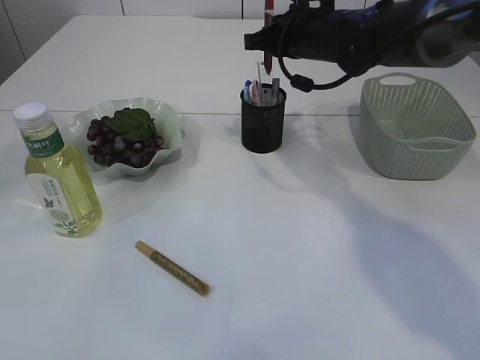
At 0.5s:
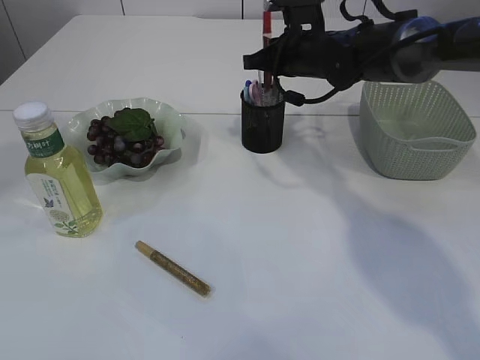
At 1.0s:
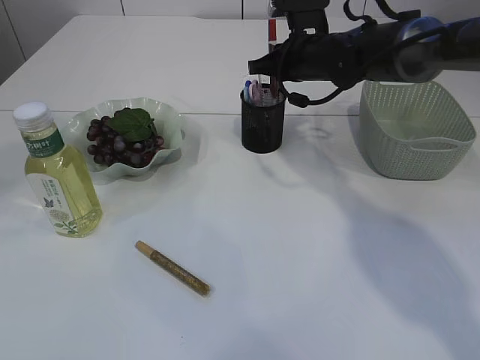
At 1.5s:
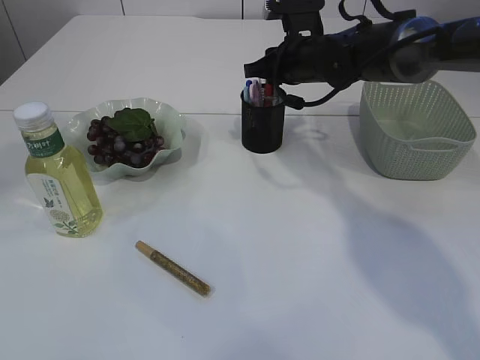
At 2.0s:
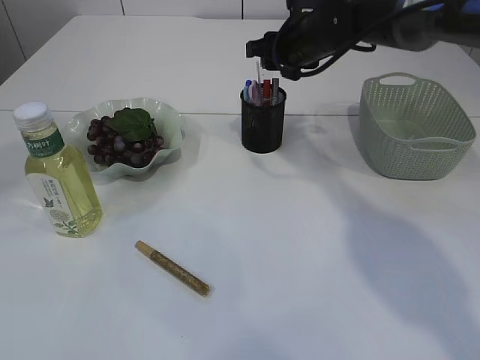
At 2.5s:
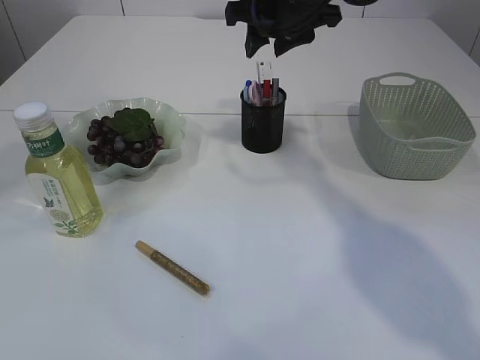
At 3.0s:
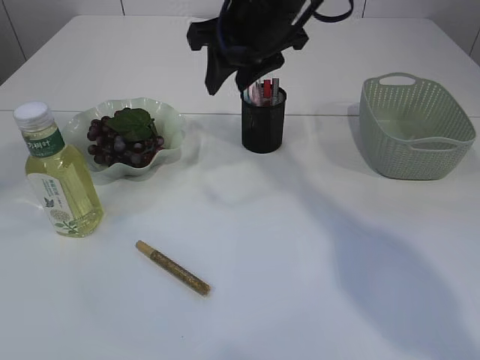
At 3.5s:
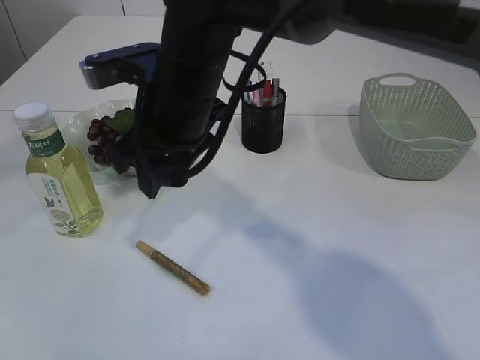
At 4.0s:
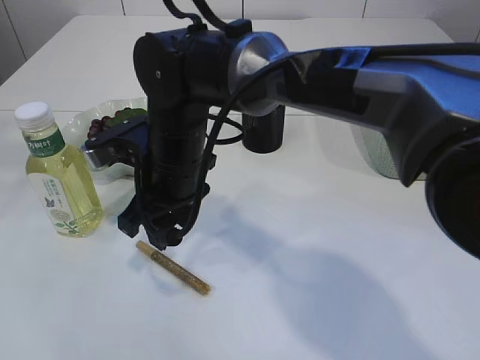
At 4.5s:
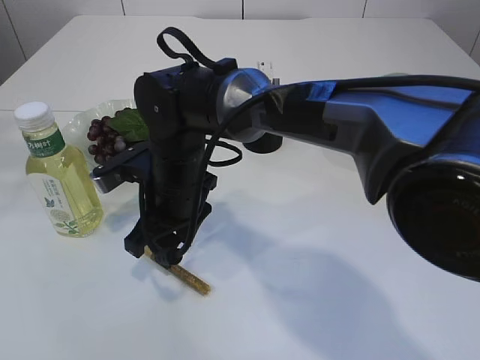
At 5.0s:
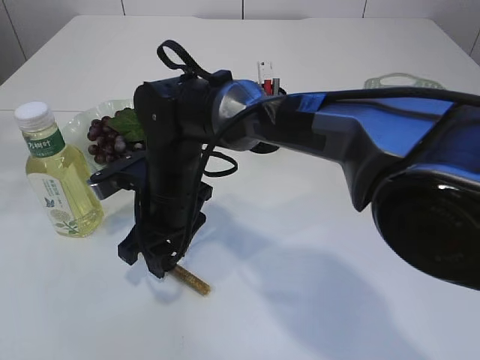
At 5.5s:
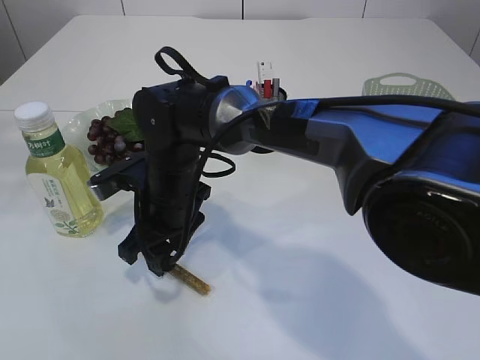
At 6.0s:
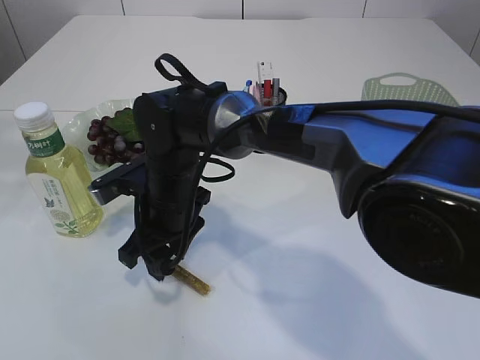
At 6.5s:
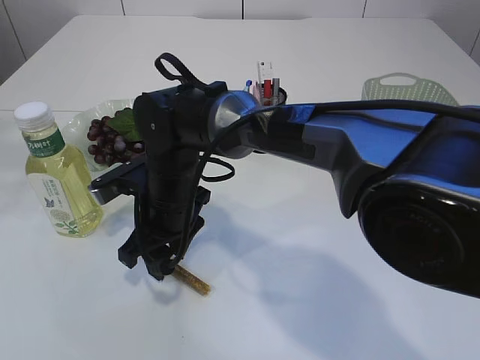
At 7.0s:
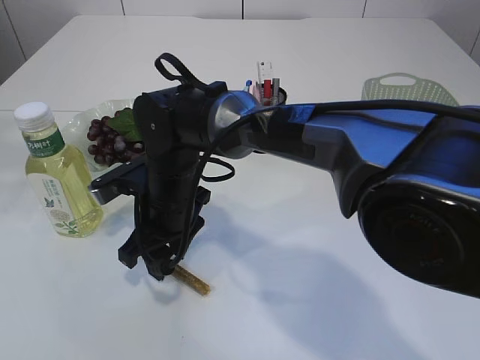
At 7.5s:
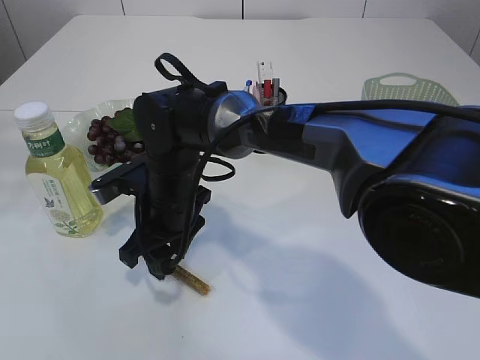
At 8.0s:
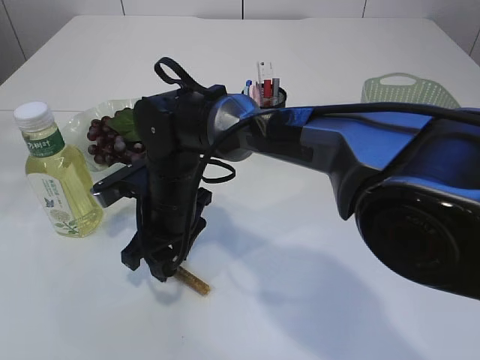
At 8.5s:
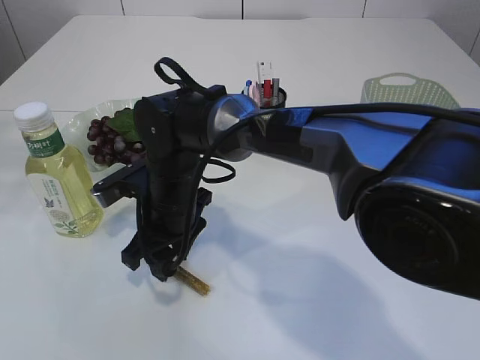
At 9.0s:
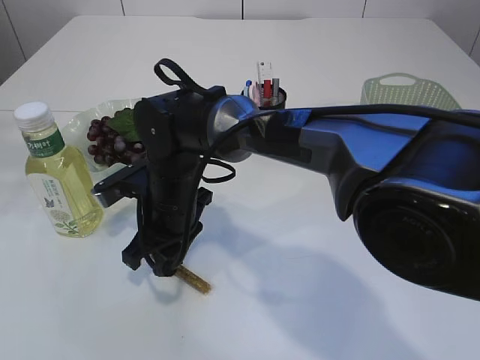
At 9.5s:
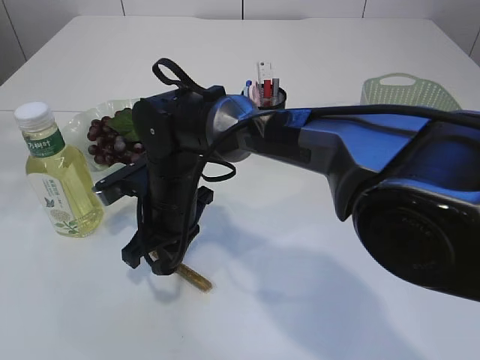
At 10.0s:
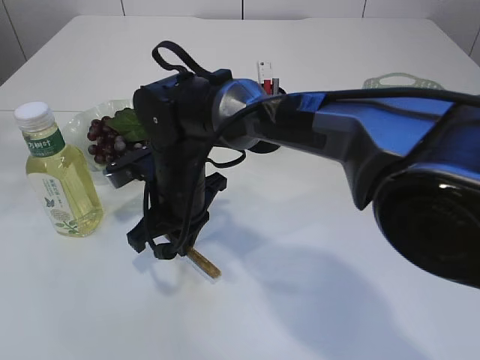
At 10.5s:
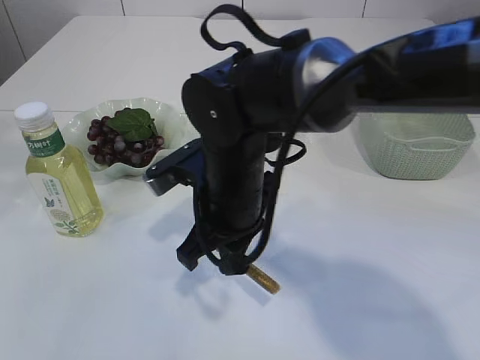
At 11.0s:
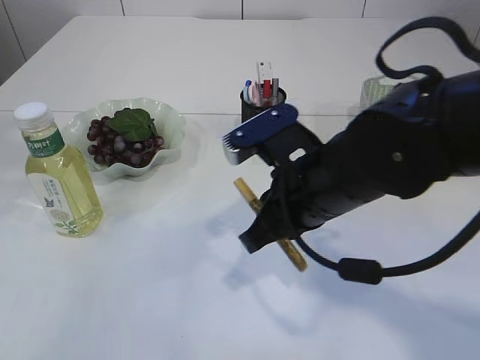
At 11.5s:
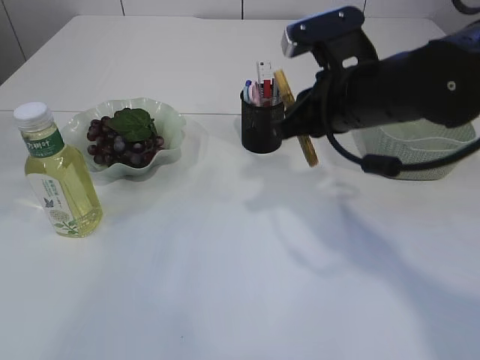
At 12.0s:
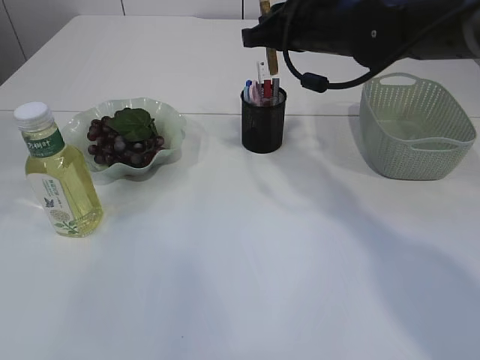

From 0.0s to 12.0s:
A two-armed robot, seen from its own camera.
Step, from 0.0s to 2.0s: place the red glue into the pen holder.
Step, from 2.5s to 10.0s: pick up the yellow glue.
From 0.0s to 2.0s: The right gripper opens.
From 2.0s to 4.0s: The right gripper is displaced to the left and backward by approximately 25 cm. Meanwhile the left gripper shifts approximately 5 cm to the left.
From 4.0s to 6.0s: The right gripper is displaced downward by roughly 5 cm.
From 6.0s to 8.0s: The two grippers keep their place.
From 8.0s to 10.0s: The right gripper closes up.
From 10.0s to 12.0s: The right gripper moves to the right, upward and forward, some 25 cm.

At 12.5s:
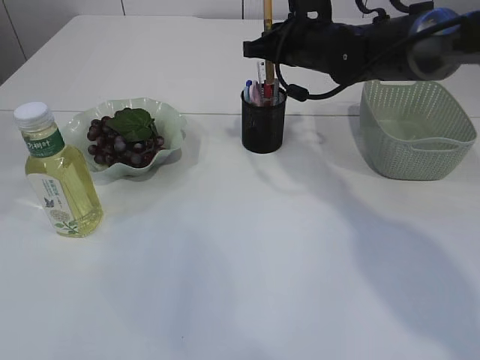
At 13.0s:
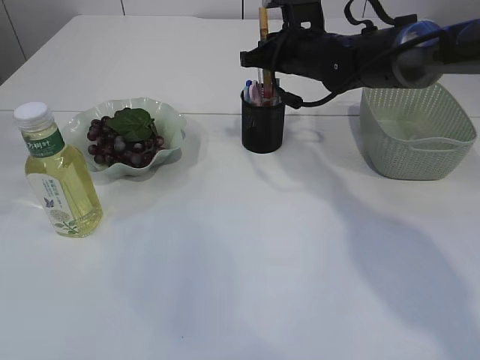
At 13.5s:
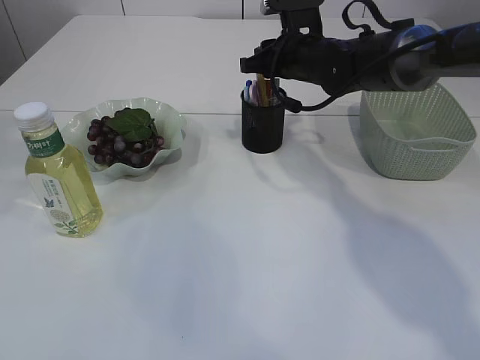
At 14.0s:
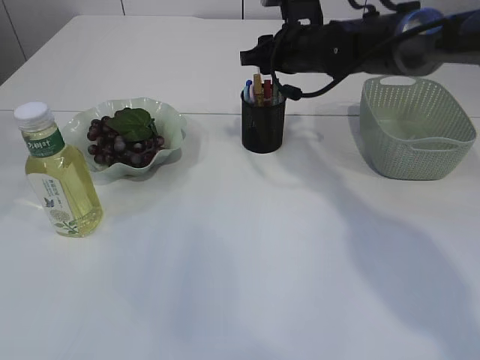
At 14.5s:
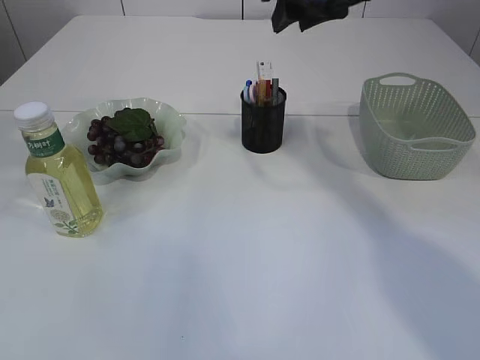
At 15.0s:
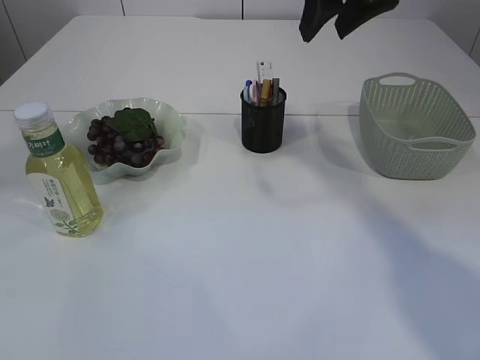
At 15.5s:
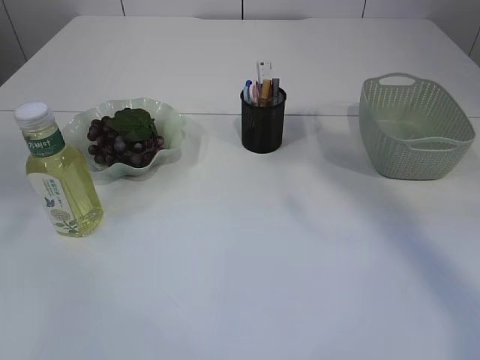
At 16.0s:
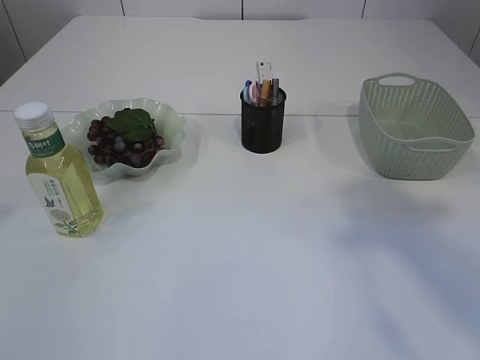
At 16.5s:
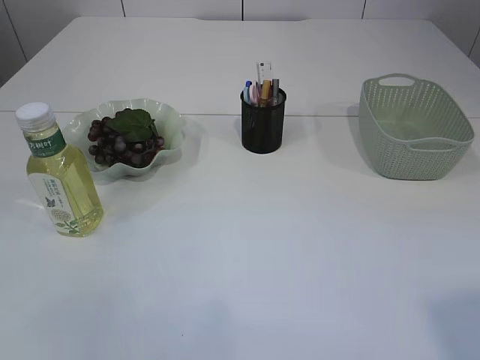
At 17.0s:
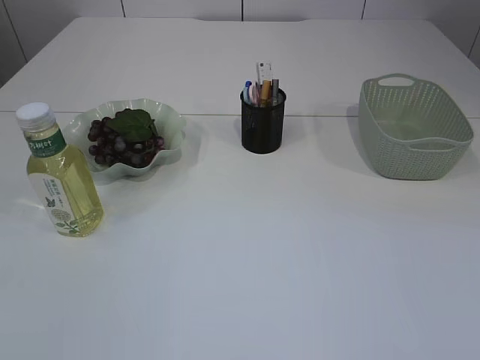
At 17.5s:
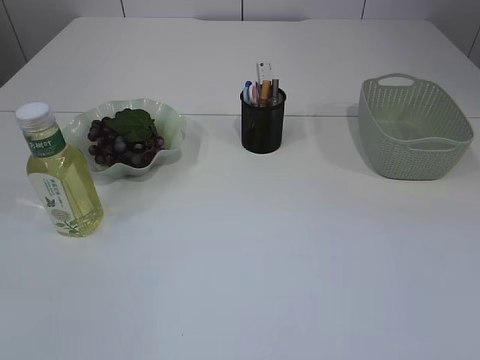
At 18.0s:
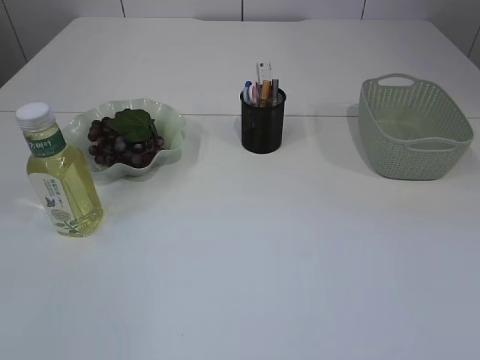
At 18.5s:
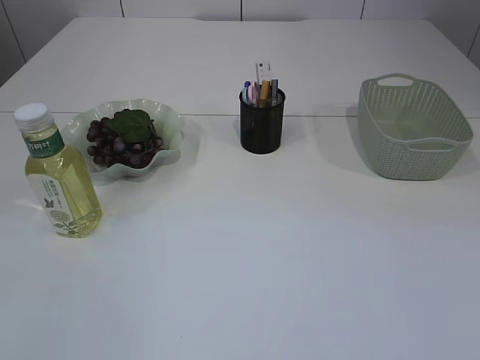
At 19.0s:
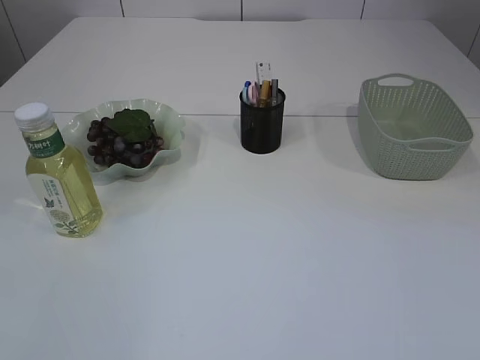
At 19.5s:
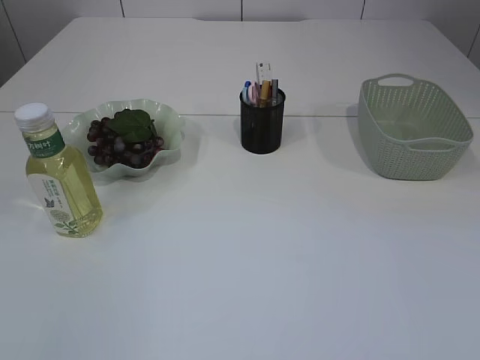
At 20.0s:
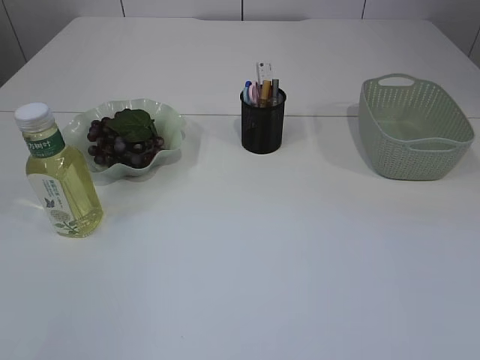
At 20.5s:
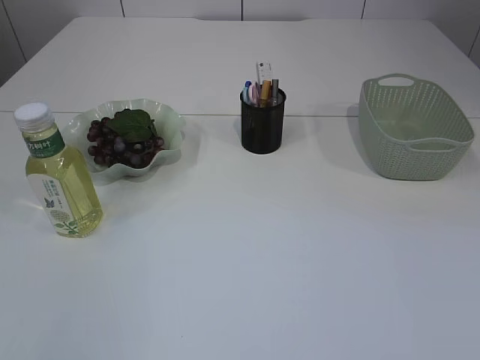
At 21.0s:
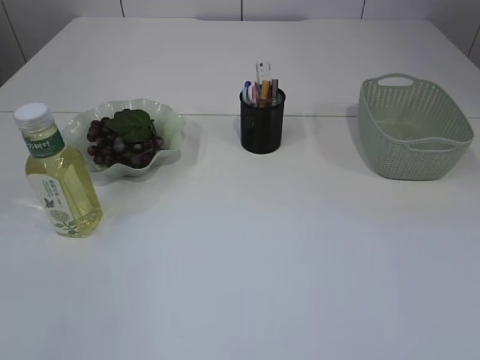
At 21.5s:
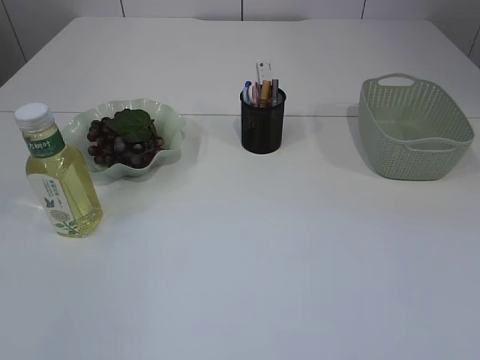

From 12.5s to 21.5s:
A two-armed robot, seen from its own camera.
From 12.5s to 14.5s: The right gripper shifts some 10 cm upward and backward, and opens up.
From 14.5s to 17.0s: Both grippers travel together backward, roughly 40 cm. The left gripper opens its fingers.
